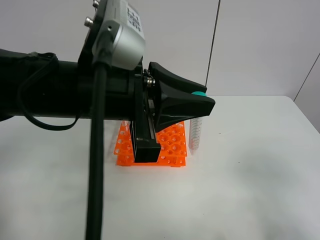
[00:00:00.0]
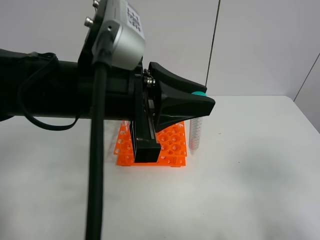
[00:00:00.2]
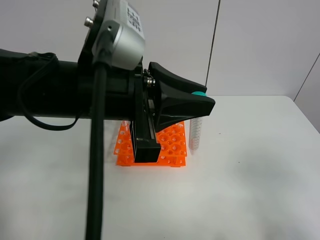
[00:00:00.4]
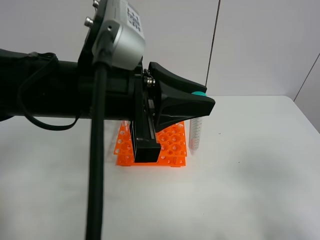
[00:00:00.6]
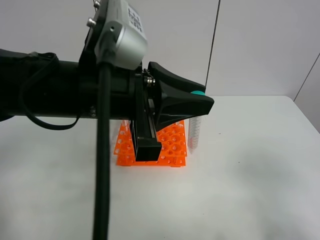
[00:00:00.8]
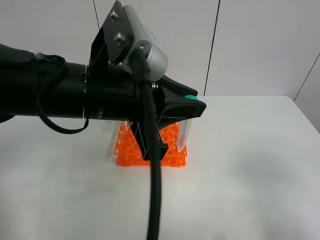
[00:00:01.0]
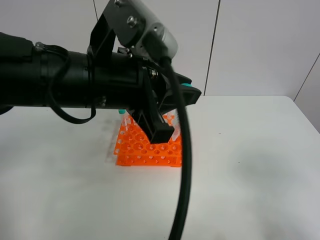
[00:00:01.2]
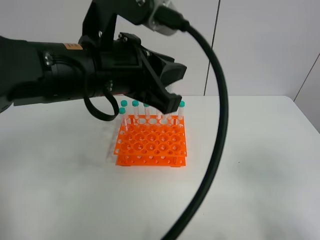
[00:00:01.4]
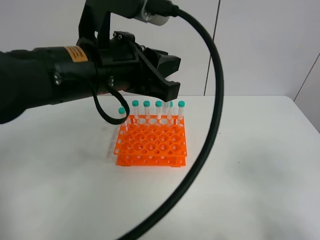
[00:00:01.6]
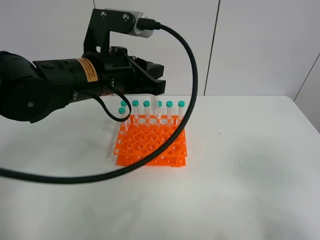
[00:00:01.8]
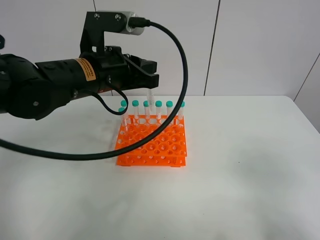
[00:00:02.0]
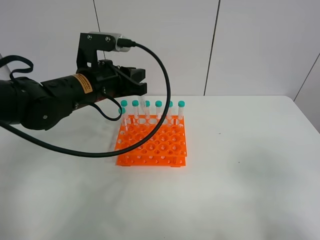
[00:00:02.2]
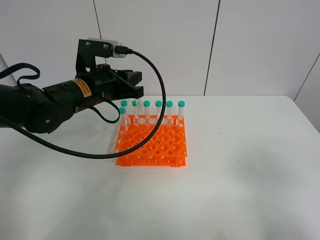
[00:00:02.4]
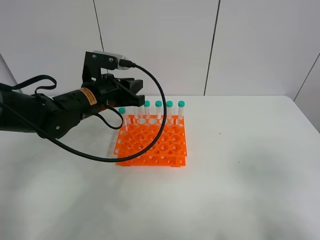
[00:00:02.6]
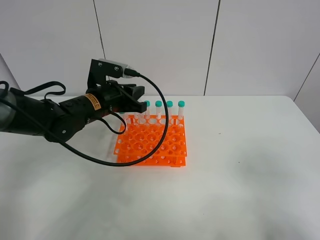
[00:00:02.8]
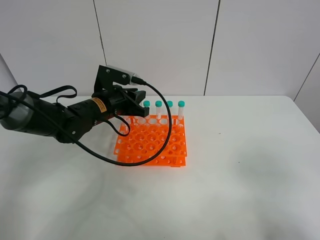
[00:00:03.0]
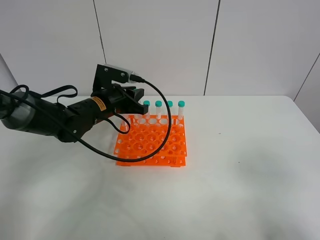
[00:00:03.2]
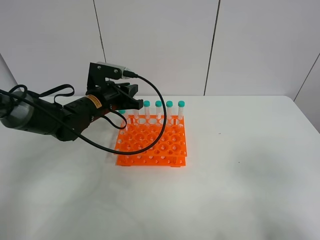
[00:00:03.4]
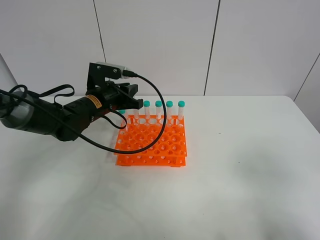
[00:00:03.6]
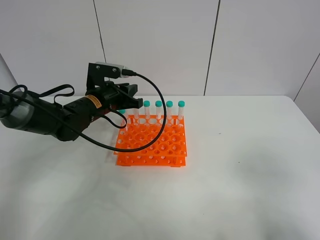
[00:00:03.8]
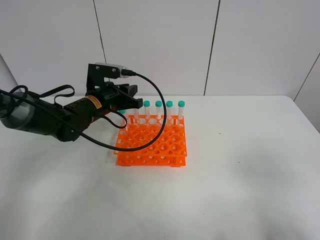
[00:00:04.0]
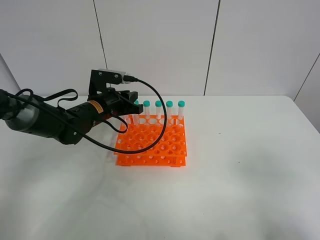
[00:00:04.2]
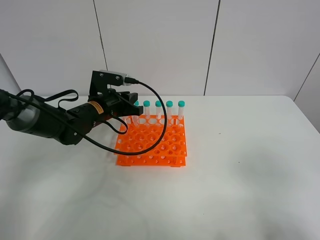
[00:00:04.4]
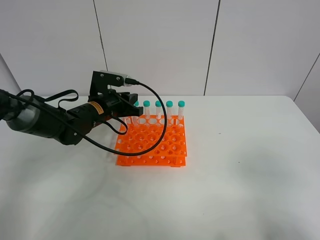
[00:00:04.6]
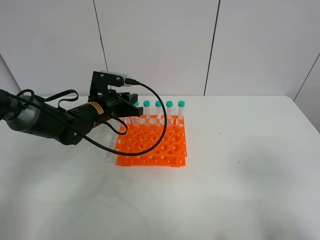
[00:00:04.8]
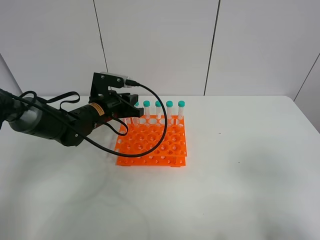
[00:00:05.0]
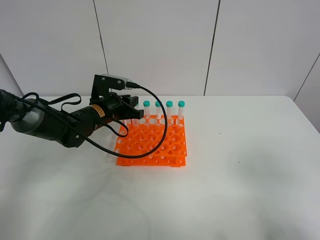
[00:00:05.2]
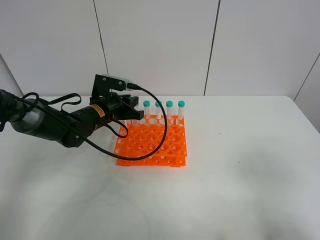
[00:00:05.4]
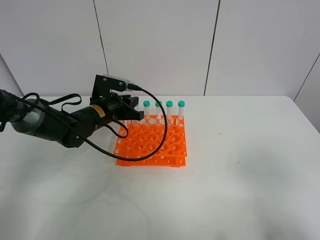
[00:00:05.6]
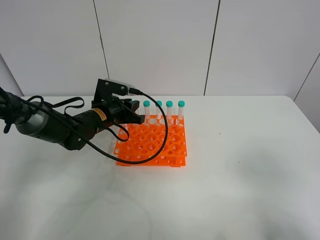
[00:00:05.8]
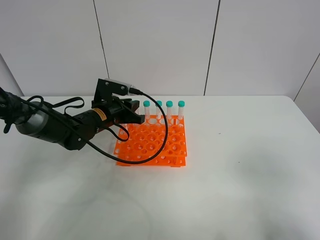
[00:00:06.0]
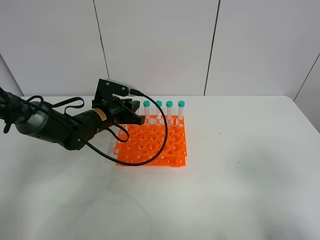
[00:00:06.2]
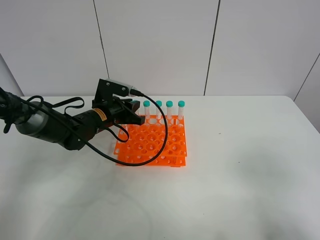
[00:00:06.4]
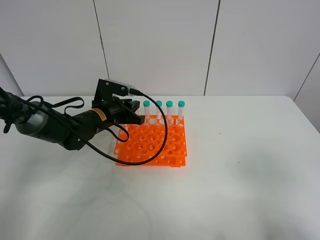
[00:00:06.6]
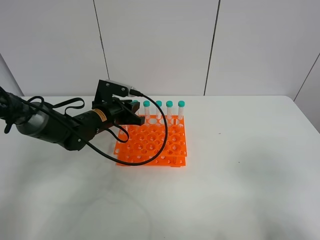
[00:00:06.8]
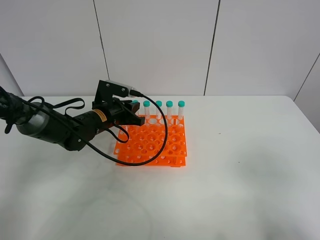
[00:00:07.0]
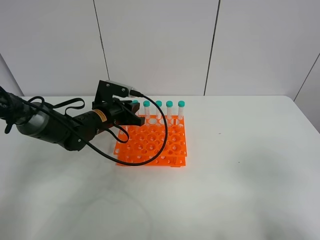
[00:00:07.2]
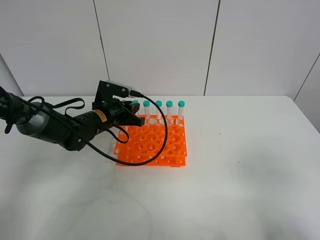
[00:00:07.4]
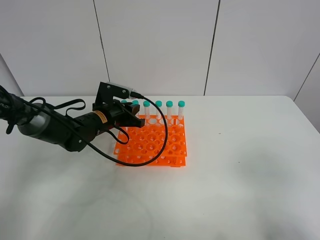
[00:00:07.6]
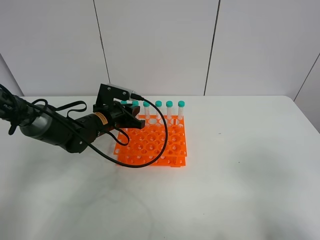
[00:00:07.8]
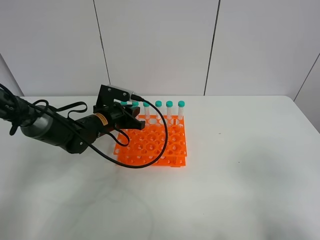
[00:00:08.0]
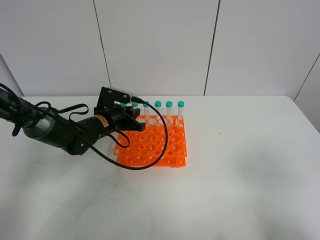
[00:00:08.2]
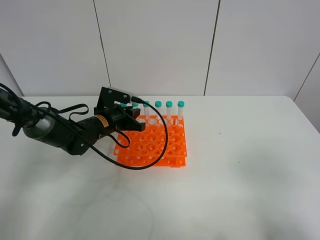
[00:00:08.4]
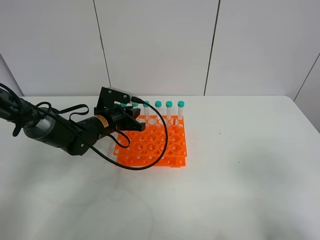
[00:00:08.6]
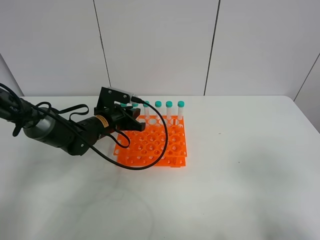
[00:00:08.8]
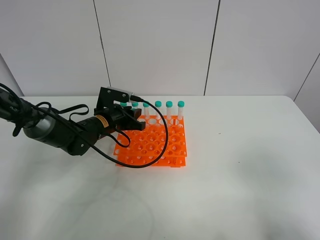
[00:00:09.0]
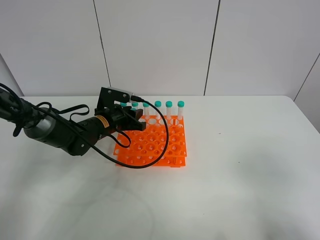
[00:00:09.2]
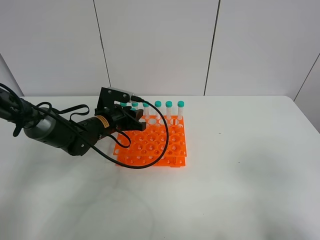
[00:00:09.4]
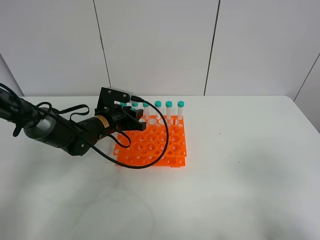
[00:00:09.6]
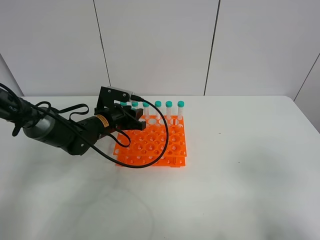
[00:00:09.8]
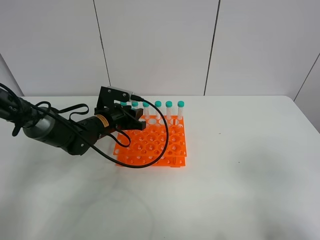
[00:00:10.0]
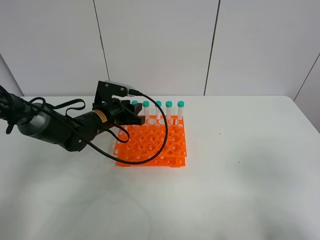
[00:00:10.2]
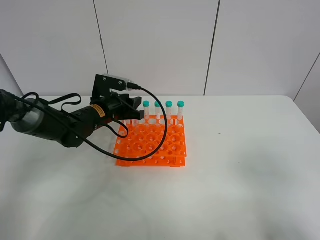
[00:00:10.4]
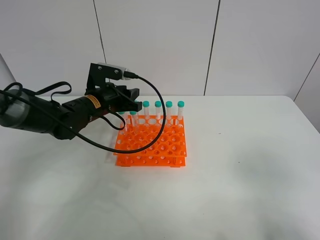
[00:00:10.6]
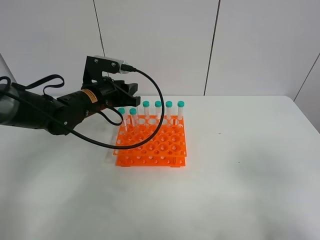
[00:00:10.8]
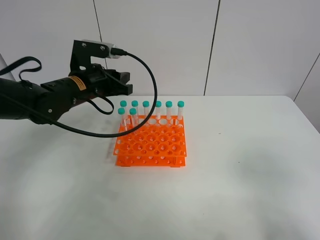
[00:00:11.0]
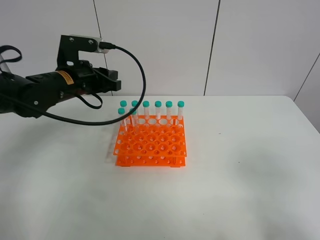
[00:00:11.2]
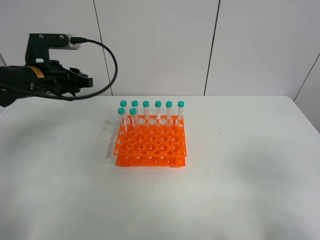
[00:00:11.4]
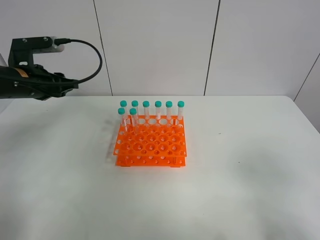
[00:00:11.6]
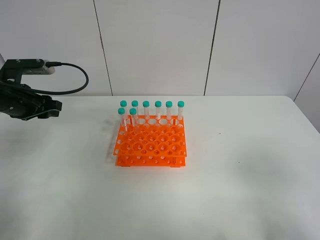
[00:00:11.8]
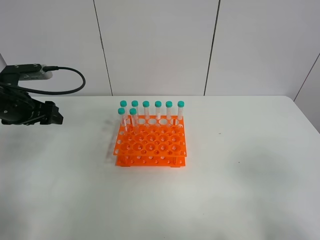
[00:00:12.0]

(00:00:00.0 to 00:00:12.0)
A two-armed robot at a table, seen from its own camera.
Task of the whole recording: Put the test tube on the table back onto the test tube rack.
Step, 00:00:00.0 - 00:00:11.2: Place the test tube on the test tube rack with the left gripper.
00:00:01.6 - 00:00:03.0: The left gripper goes approximately 20 cm downward and forward.
00:00:03.0 - 00:00:06.0: The grippers stay close to where they were, moving slightly.
00:00:06.0 - 00:00:07.6: Both grippers stay about where they are.
00:00:07.6 - 00:00:09.0: Both grippers stay put.
00:00:09.0 - 00:00:10.4: The grippers stay close to where they were, moving slightly.
00:00:10.4 - 00:00:12.0: The left gripper heads to the left and upward, covering about 20 cm, and opens.

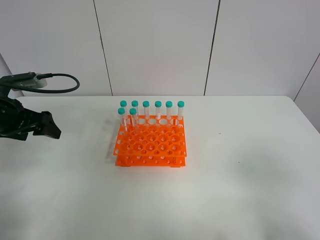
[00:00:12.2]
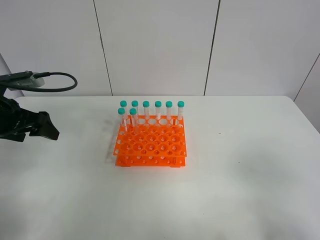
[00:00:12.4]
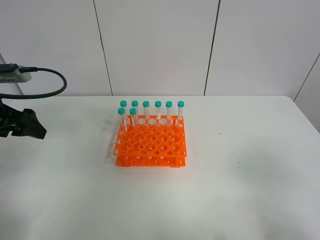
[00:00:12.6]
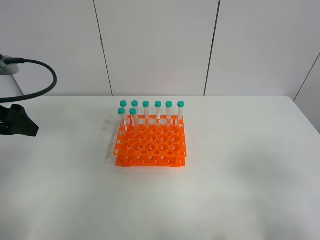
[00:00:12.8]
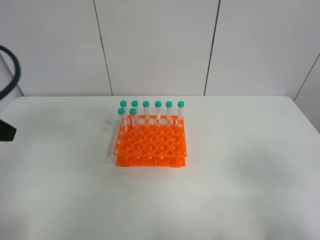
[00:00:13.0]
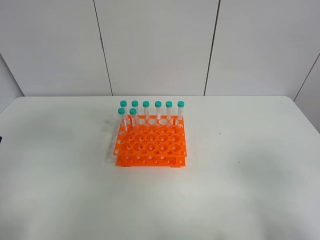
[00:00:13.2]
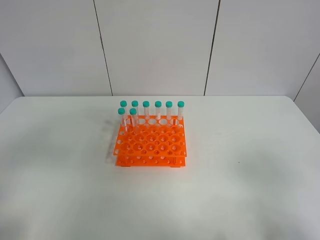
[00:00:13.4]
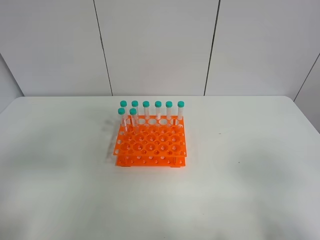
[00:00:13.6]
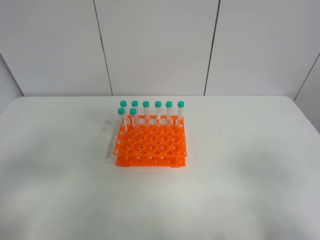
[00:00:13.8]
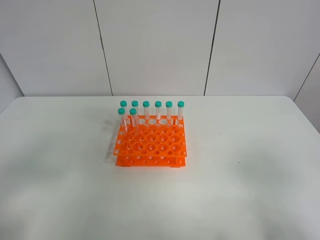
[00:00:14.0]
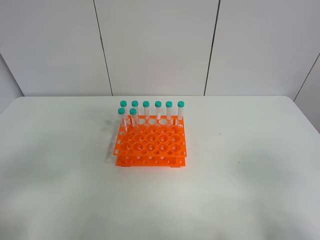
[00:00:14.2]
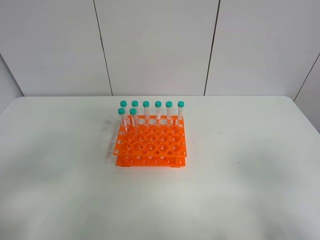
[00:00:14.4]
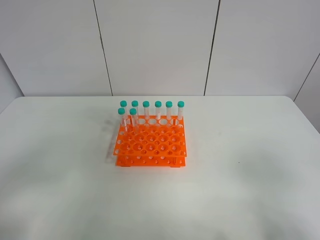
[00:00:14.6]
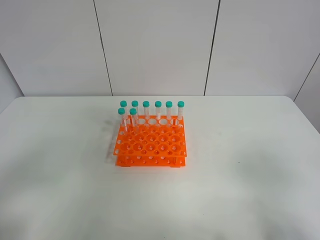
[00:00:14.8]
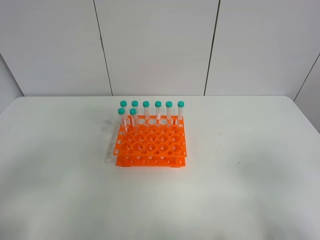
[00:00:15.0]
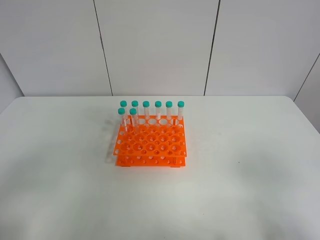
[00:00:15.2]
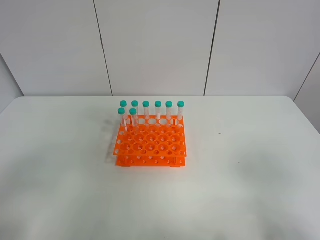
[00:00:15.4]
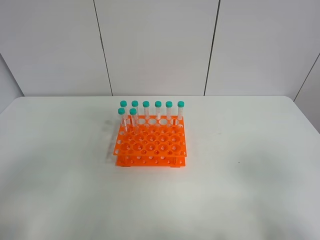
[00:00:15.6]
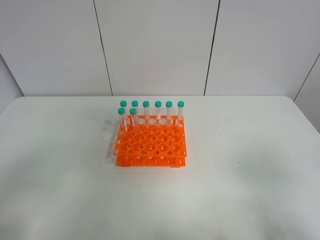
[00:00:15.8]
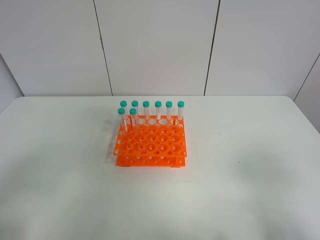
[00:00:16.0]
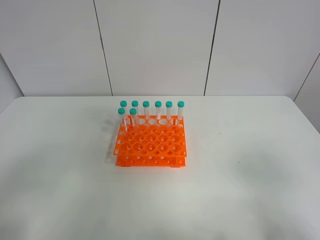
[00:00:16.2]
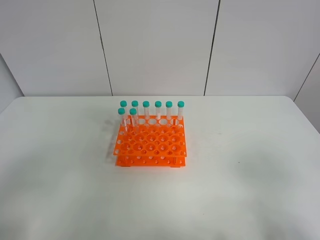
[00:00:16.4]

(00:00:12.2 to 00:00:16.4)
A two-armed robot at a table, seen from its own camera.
Task of the whole recording: Put the test tube on the table back onto the test tube rack.
00:00:12.2 - 00:00:13.6: The left gripper shifts roughly 25 cm backward.
00:00:15.0 - 00:00:16.4: Neither gripper changes place.
